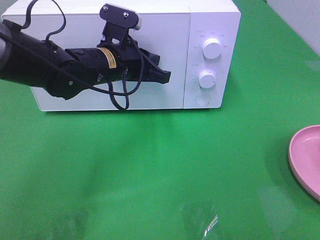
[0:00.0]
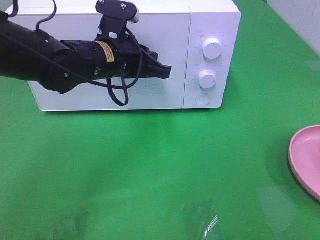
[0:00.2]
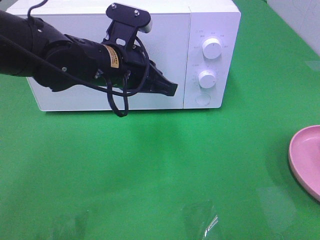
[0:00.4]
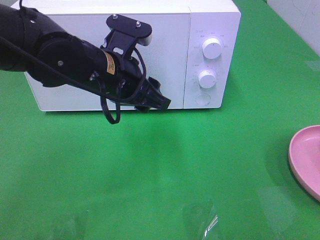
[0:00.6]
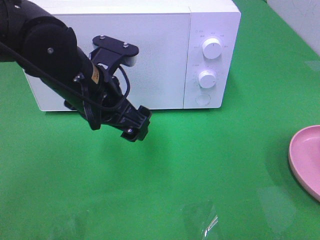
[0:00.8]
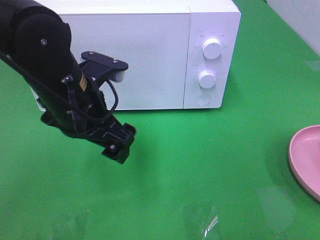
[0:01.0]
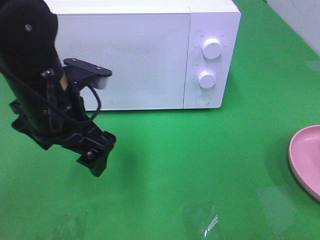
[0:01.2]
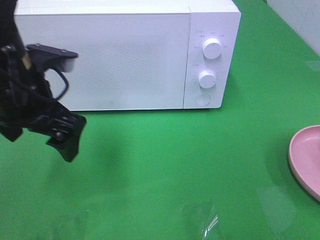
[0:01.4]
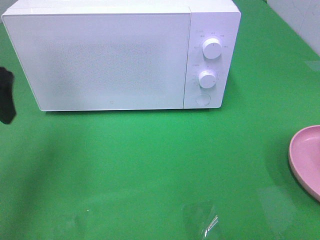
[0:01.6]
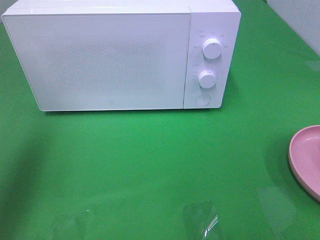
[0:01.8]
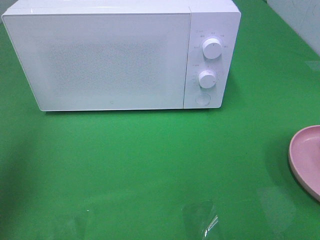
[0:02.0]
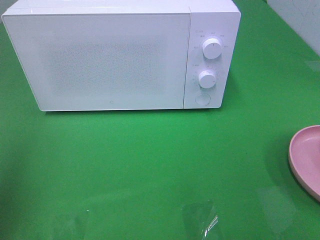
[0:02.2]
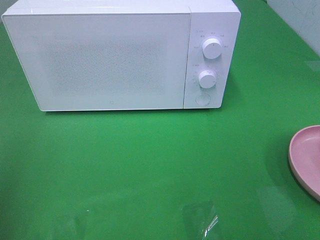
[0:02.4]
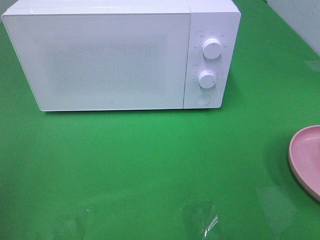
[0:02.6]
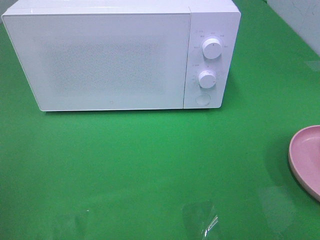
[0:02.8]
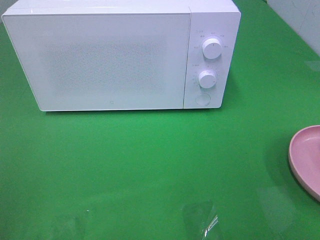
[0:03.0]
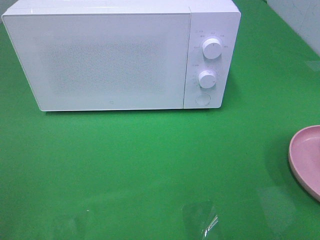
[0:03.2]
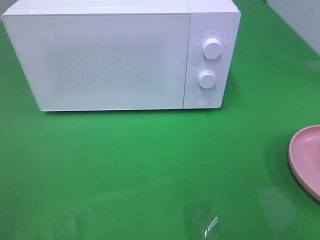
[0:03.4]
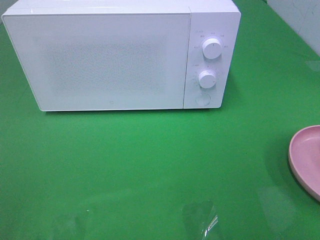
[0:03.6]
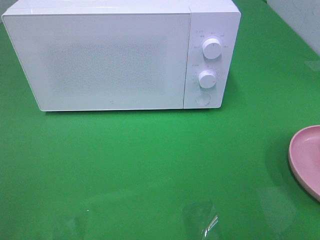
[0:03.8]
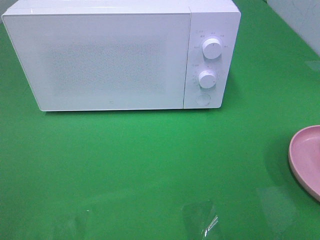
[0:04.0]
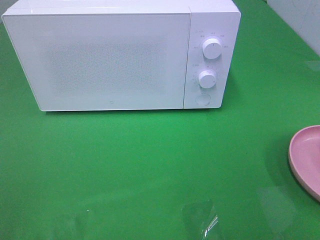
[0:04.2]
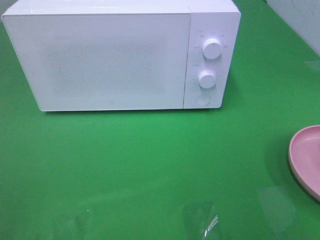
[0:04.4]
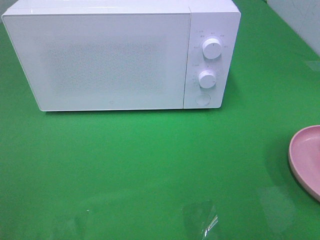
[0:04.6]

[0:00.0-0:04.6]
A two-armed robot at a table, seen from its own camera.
Task of the whole recording: Heat the burger.
0:00.0 to 0:01.6: The left gripper travels to the left, upward and backward by approximately 25 cm, and opens up.
0:01.6 to 0:03.0: The left gripper travels backward by approximately 20 cm.
